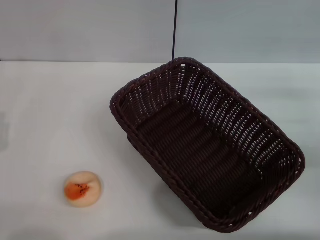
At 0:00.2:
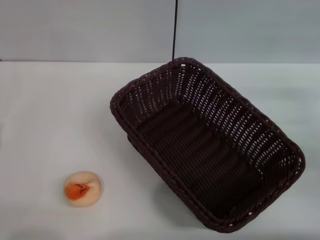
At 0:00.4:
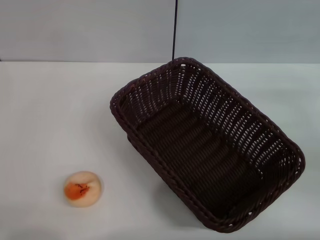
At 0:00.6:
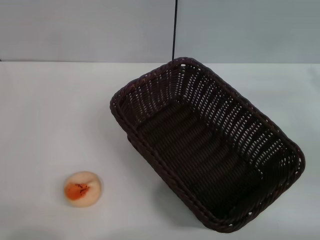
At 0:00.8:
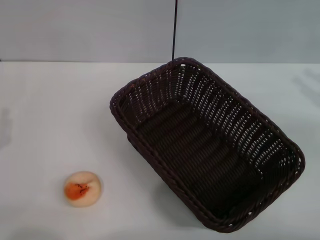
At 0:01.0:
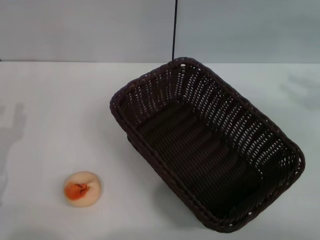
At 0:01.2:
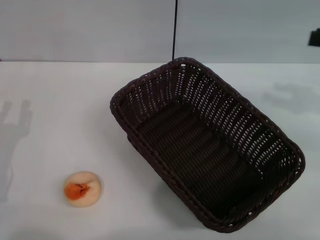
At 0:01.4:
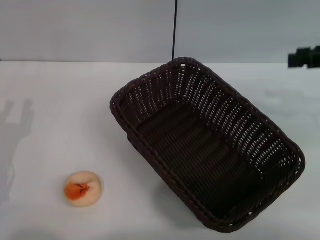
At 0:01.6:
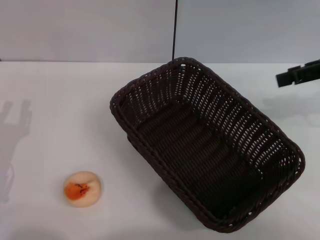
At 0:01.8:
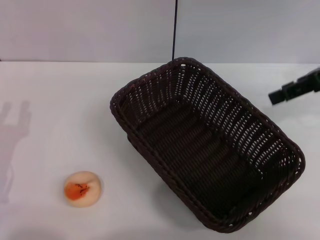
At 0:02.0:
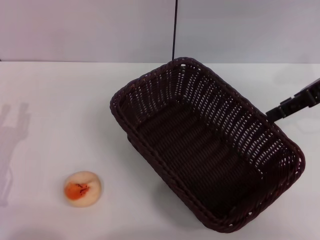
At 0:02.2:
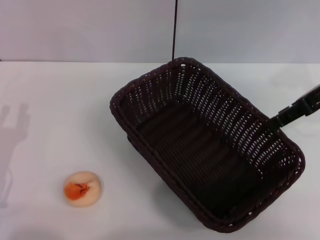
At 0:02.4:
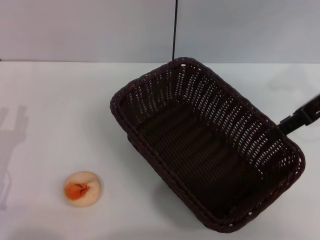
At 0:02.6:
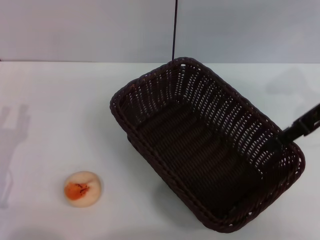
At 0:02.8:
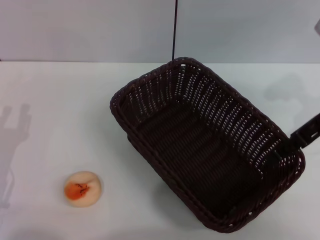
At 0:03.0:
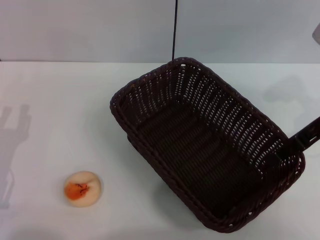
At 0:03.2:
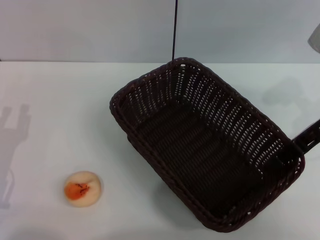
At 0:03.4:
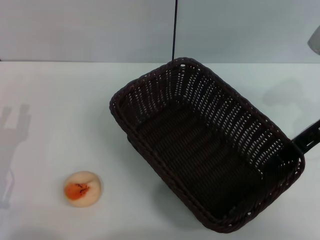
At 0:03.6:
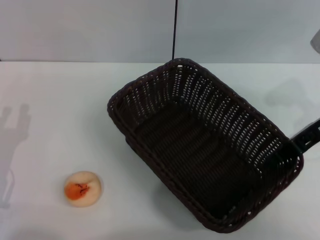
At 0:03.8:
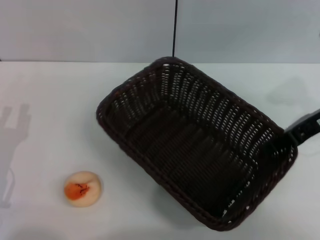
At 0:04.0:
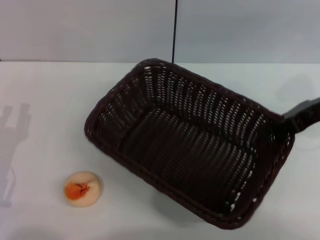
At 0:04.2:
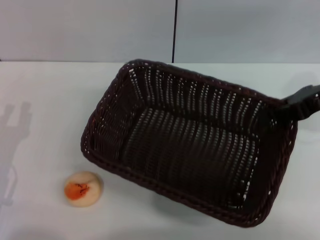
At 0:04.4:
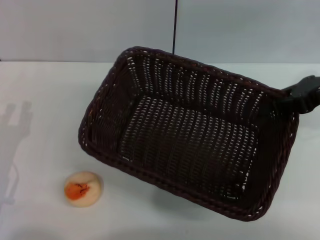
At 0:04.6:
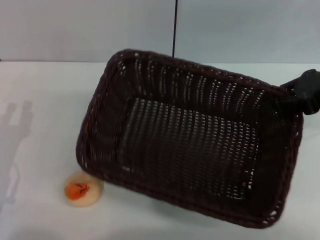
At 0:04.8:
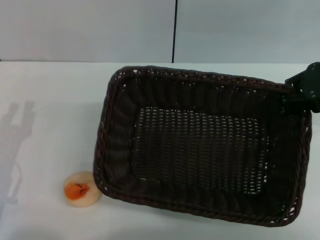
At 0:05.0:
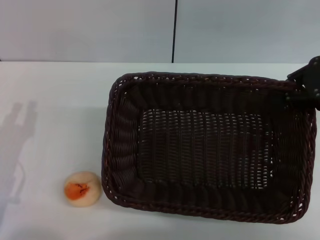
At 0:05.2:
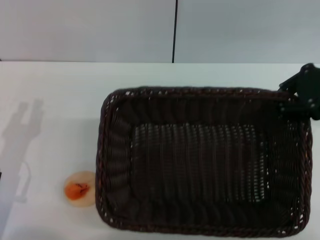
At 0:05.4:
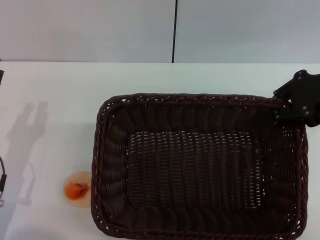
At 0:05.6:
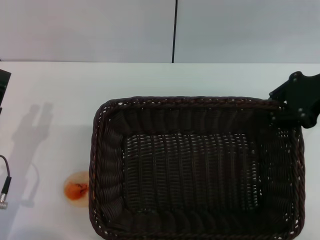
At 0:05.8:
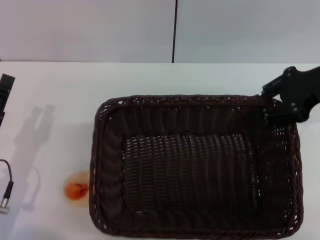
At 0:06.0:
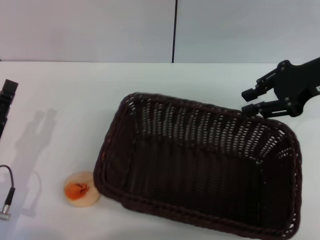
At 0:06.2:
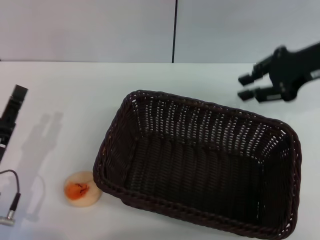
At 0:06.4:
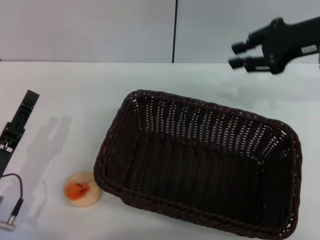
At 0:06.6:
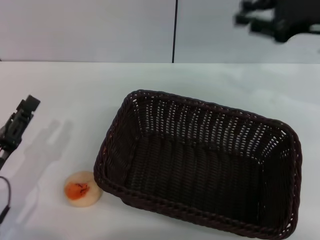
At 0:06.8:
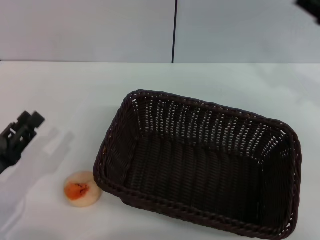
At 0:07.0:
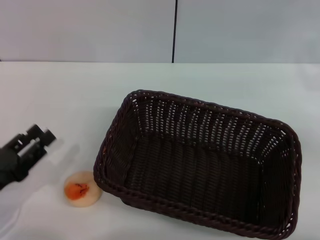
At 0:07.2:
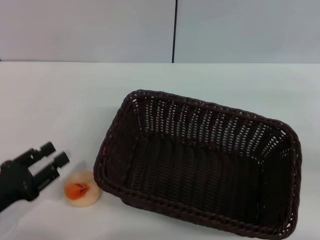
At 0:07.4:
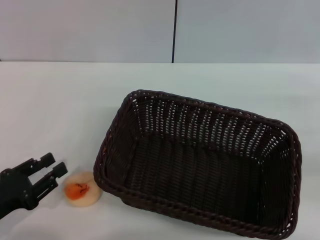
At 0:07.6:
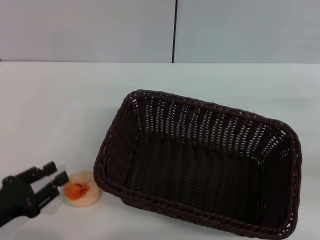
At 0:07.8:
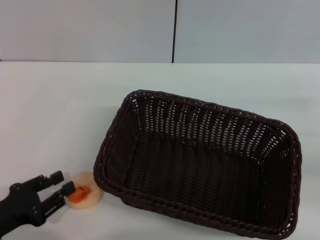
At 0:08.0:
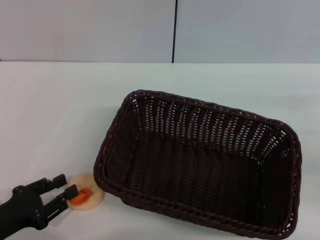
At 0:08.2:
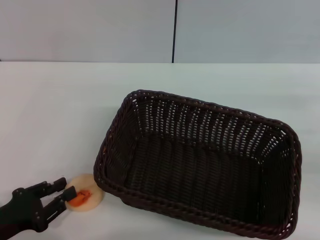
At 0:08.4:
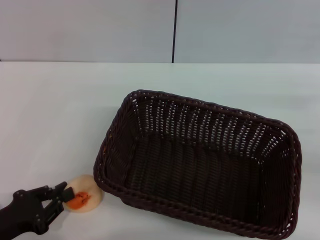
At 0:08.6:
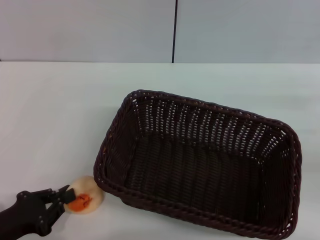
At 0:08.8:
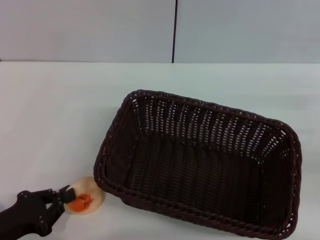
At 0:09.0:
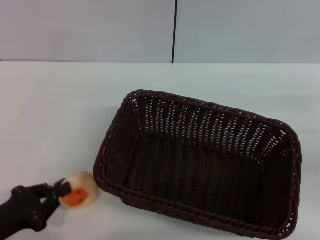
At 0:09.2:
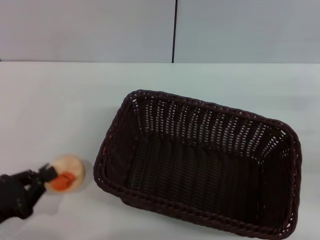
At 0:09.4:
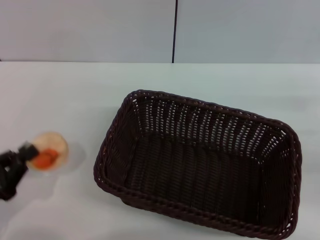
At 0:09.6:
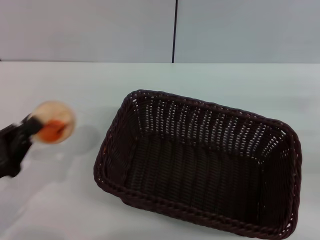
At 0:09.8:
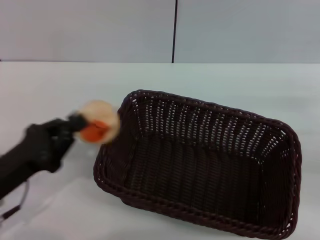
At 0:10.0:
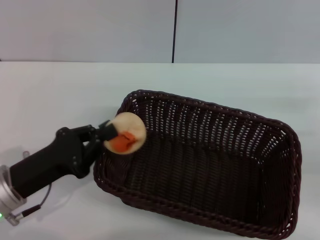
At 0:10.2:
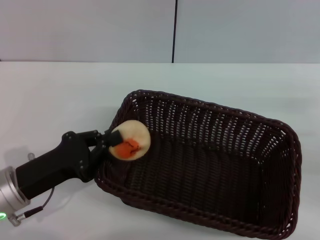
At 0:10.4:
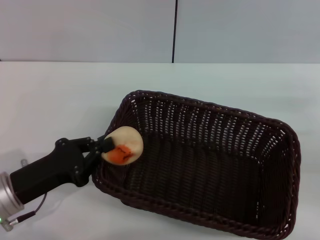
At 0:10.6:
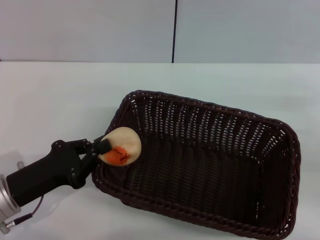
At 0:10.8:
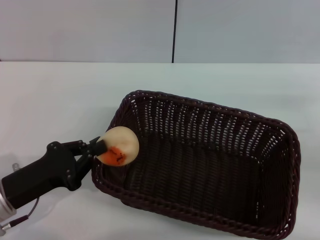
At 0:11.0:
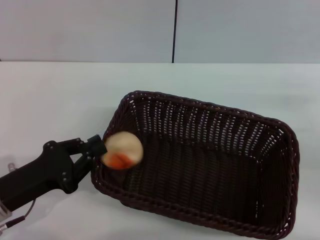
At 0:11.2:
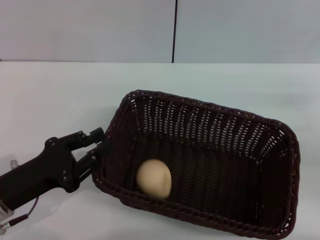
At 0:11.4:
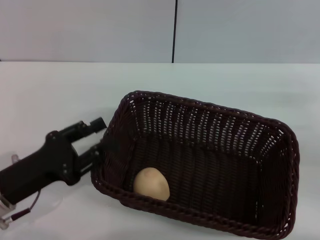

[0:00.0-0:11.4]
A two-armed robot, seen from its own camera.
Step, 0:00.0 to 0:06.4: Move the basket to the center of view with the right gripper.
Step, 0:06.6 to 0:09.2: Pick up the egg yolk pastry with the left gripper.
Step, 0:09.4 to 0:11.4: Place the egg yolk pastry into the basket with the left gripper.
0:00.0 to 0:01.4: The right gripper shifts some 15 cm upward.
0:01.4 to 0:02.8: The right gripper shifts about 5 cm to the left.
0:02.8 to 0:04.2: The right gripper closes up.
0:05.6 to 0:07.2: The left gripper moves roughly 5 cm; the right gripper goes roughly 15 cm to the right, downward and backward.
0:07.2 to 0:08.6: The left gripper closes up.
0:08.6 to 0:10.0: The left gripper is displaced forward and to the right by roughly 10 cm.
0:10.0 to 0:11.4: The left gripper opens.

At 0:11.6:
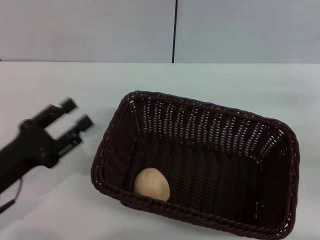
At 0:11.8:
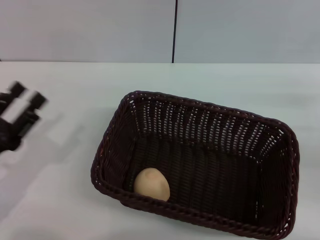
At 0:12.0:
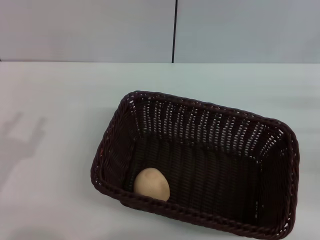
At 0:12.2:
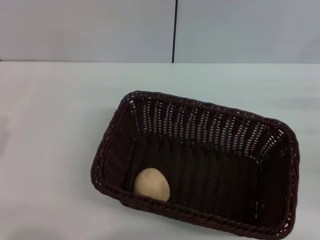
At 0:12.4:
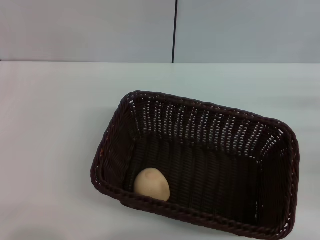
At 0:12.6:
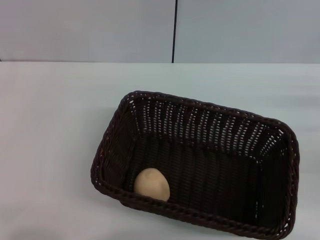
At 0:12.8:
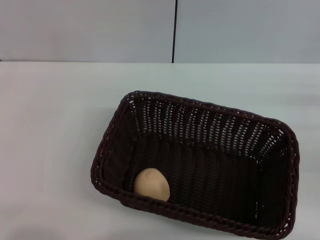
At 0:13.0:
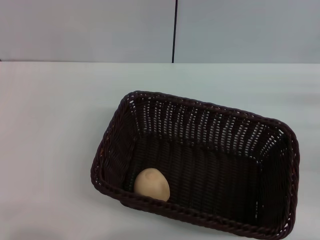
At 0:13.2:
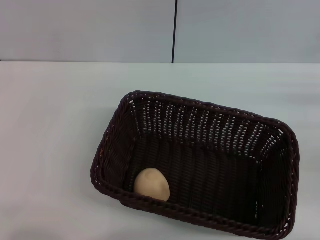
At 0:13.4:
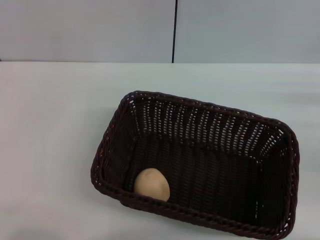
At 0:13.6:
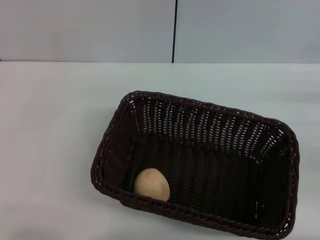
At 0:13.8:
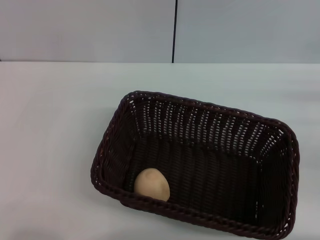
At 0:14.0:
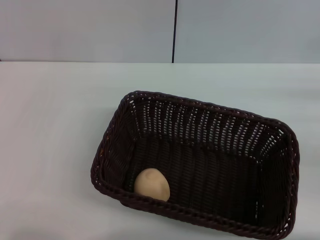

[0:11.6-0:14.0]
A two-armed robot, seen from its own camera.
0:11.6 to 0:12.8: The left gripper heads to the left, covering about 5 cm.
